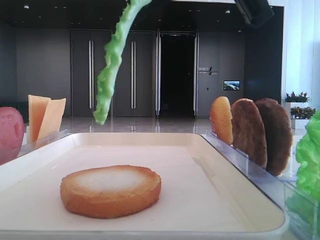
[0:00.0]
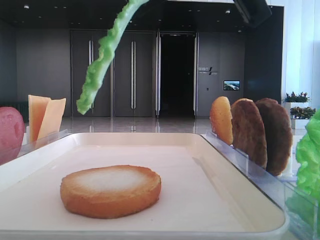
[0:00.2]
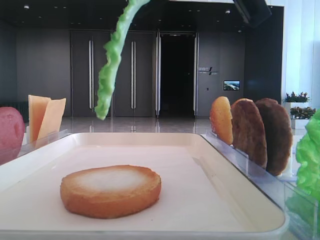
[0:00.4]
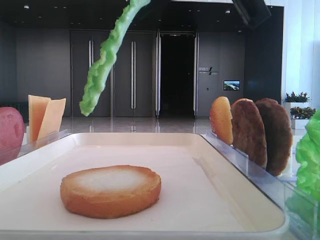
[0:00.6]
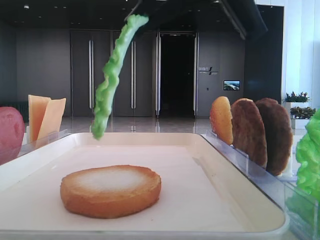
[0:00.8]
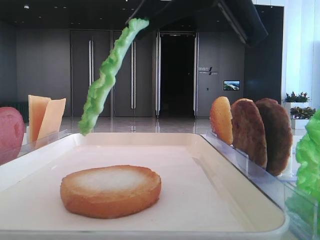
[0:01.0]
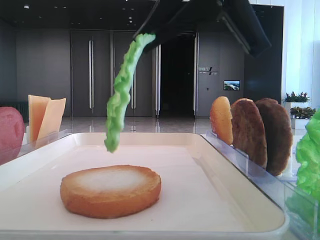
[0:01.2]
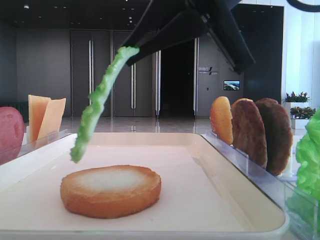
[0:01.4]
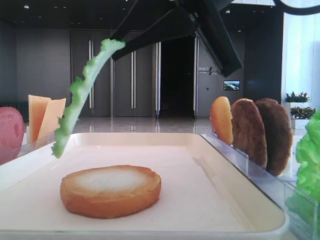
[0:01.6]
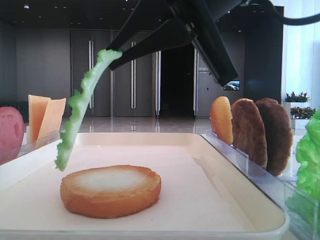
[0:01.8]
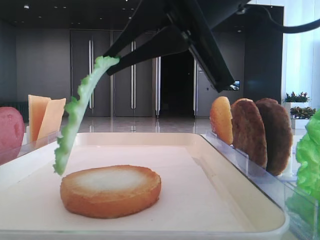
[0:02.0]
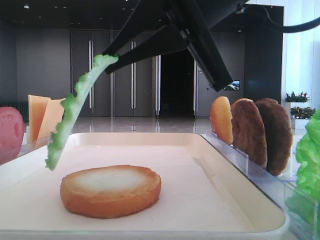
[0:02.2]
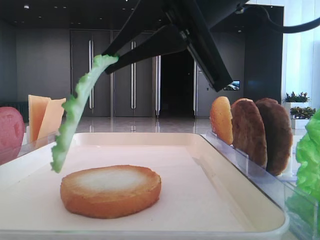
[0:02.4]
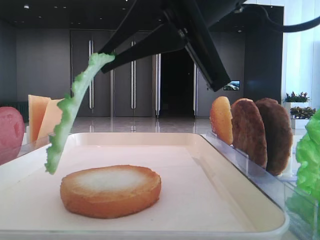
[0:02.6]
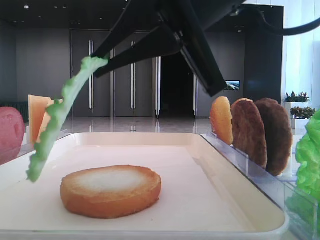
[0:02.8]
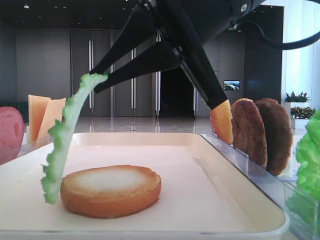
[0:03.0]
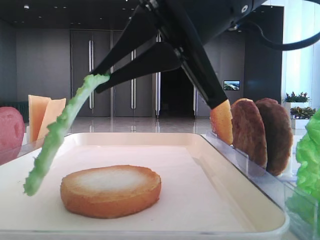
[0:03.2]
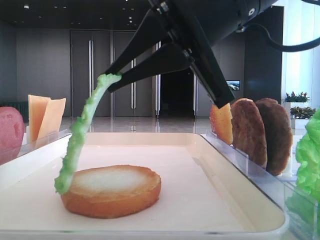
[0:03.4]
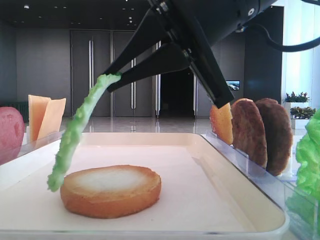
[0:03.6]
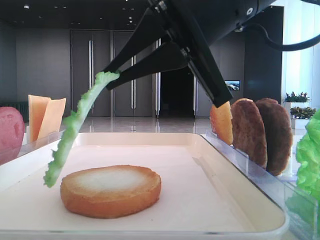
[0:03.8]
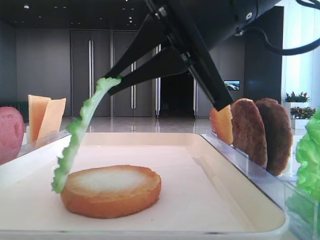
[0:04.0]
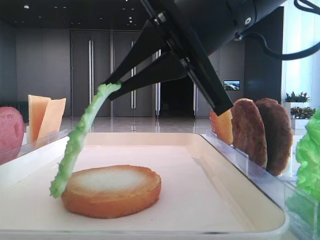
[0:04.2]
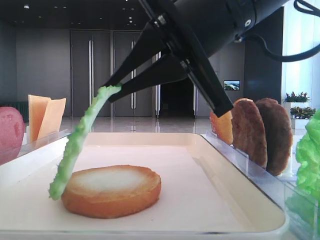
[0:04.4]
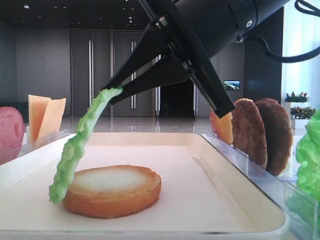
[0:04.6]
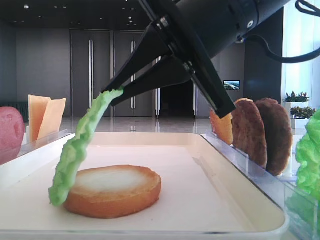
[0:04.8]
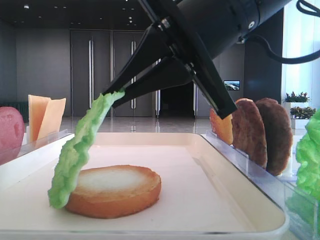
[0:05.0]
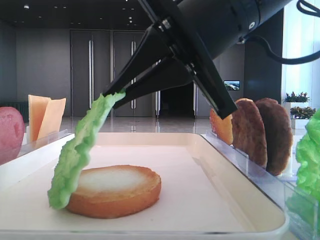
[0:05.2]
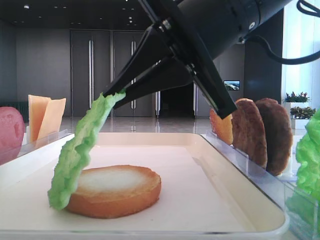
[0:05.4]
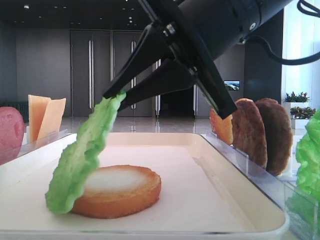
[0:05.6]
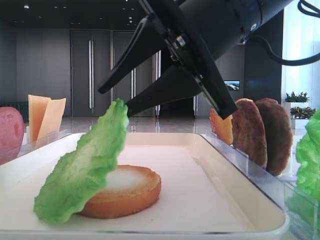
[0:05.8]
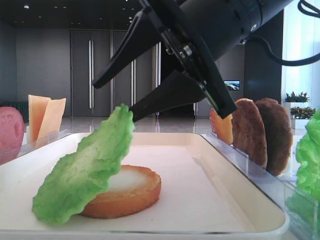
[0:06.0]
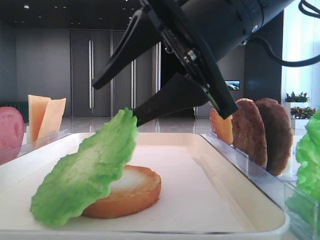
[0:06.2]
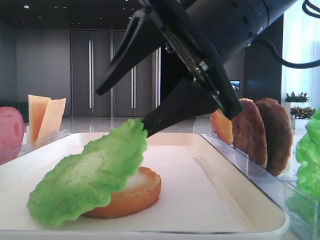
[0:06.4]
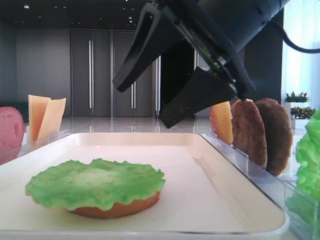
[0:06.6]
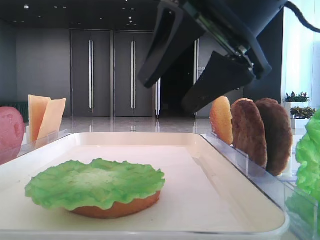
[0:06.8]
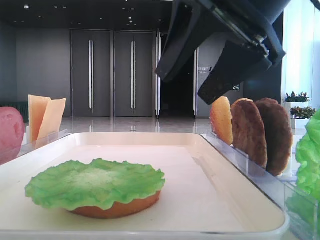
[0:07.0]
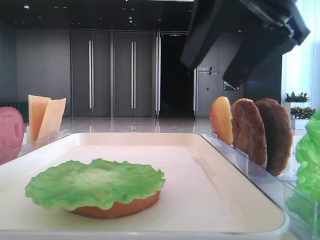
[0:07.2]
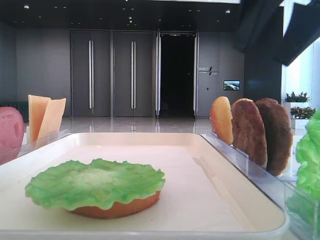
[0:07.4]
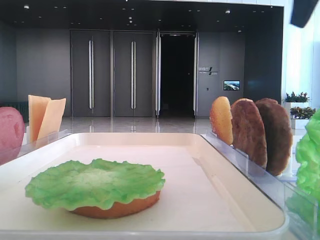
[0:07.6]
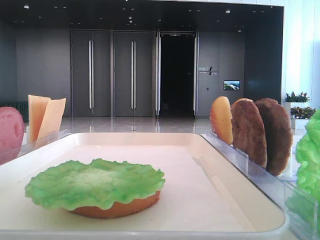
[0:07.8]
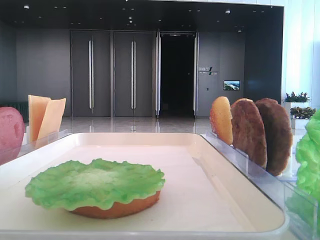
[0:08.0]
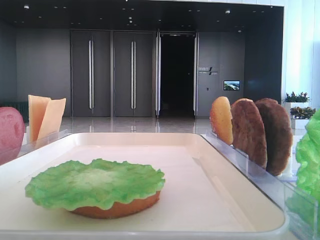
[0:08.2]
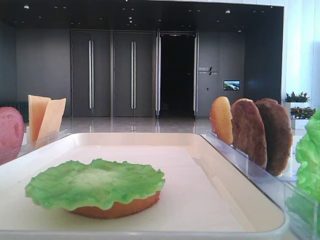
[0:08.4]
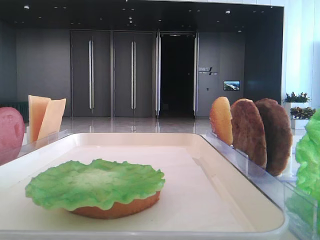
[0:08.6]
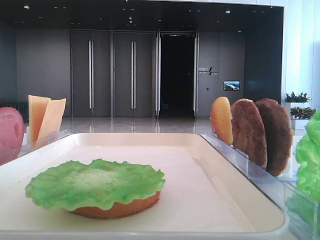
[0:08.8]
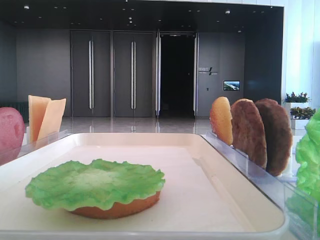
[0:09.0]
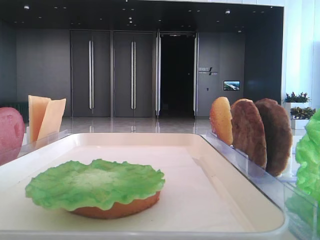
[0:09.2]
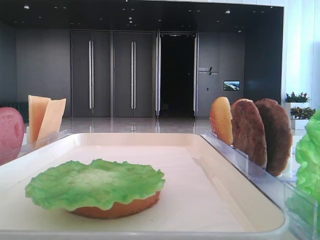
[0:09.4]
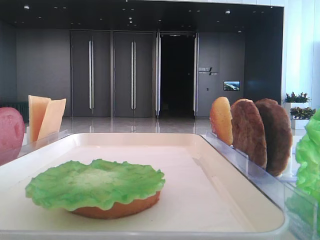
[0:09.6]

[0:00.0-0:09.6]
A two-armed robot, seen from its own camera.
Step, 0:00.0 to 0:06.4: Place the lettuce leaf on the bottom bread with the right hand.
0:00.0 to 0:01.6: There are only small adjustments of the grippers.
0:01.6 to 0:04.8: The grippers make only small movements.
0:04.8 to 0:06.4: The right gripper opens its fingers.
0:06.4 to 0:08.0: The right gripper is displaced to the right and upward by approximately 30 cm.

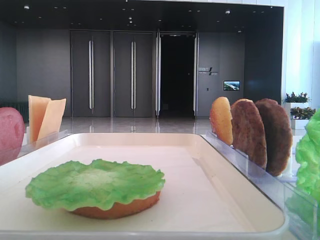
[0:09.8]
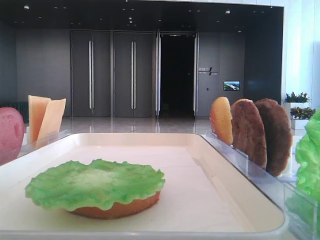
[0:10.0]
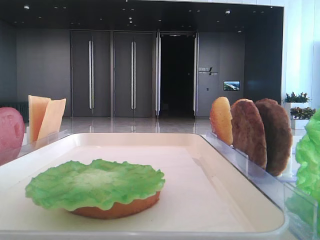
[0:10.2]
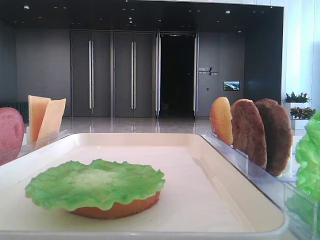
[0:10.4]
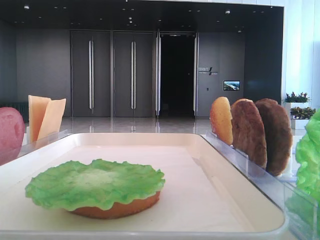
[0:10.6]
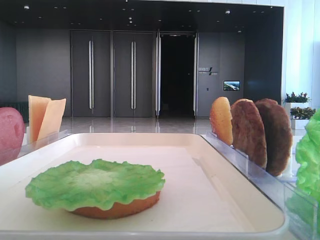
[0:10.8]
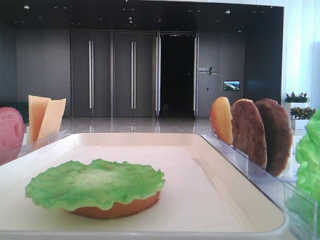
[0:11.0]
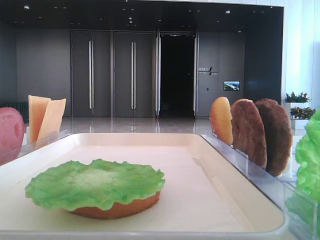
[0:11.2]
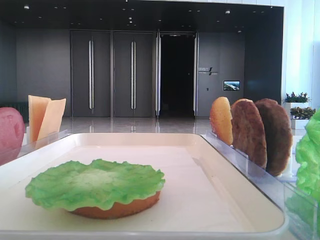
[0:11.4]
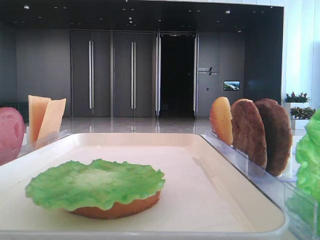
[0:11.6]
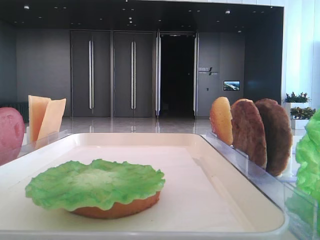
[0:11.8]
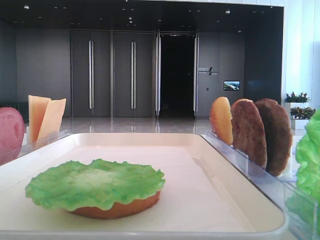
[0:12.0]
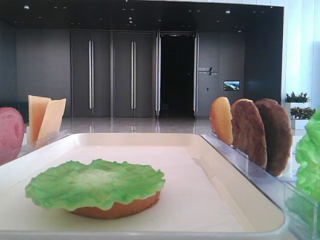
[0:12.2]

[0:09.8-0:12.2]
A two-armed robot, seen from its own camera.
0:11.0 to 0:12.2: Both grippers stay about where they are.

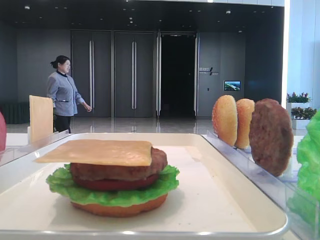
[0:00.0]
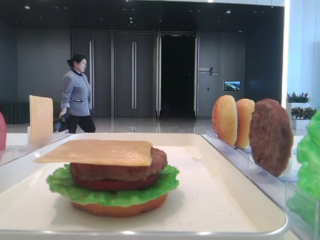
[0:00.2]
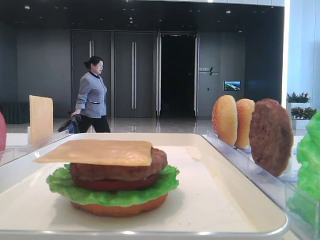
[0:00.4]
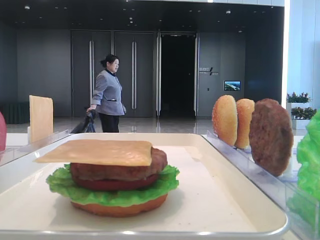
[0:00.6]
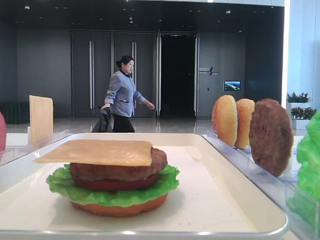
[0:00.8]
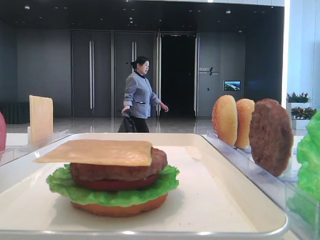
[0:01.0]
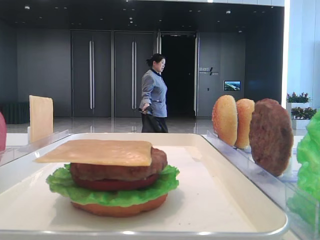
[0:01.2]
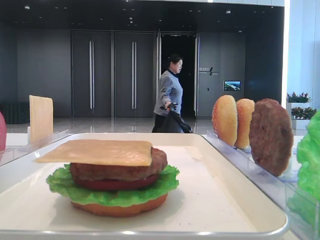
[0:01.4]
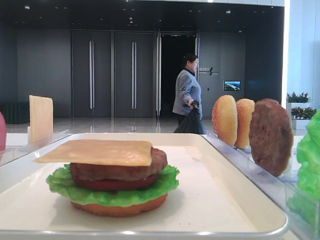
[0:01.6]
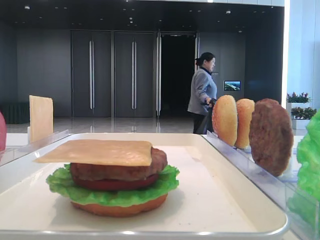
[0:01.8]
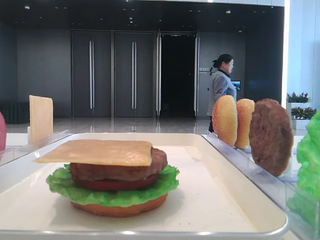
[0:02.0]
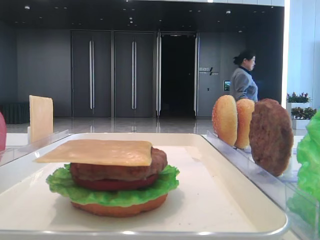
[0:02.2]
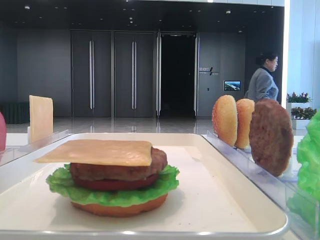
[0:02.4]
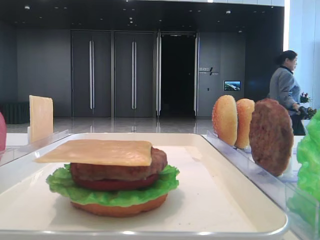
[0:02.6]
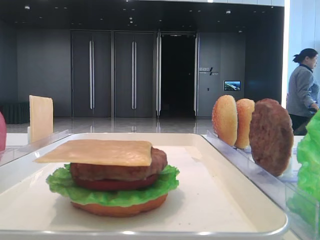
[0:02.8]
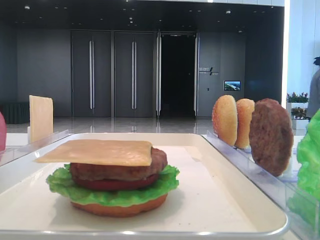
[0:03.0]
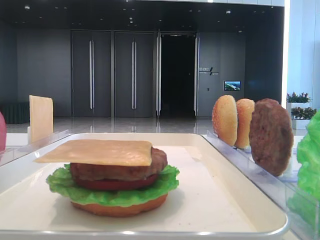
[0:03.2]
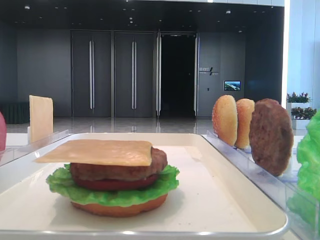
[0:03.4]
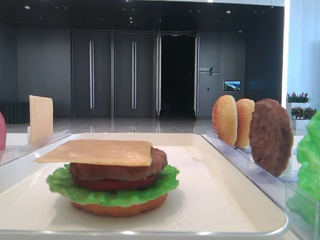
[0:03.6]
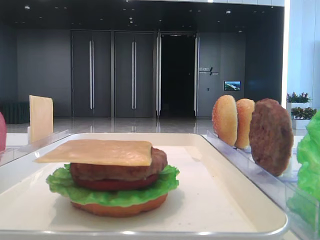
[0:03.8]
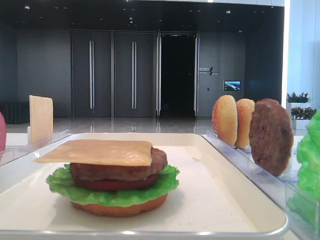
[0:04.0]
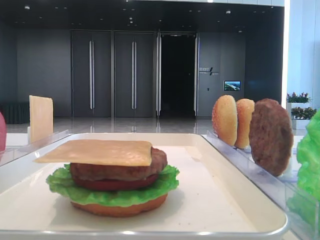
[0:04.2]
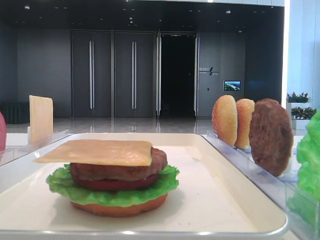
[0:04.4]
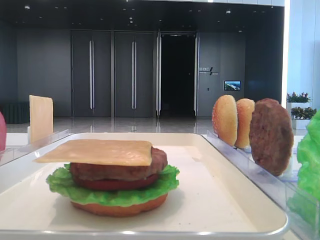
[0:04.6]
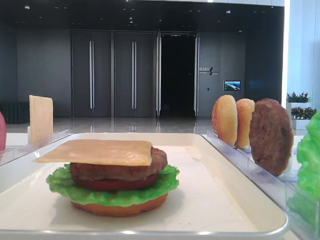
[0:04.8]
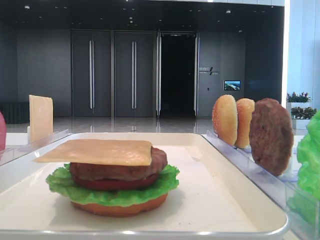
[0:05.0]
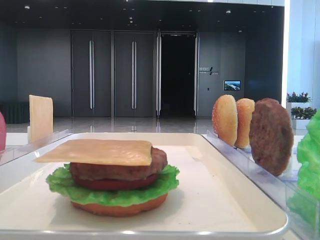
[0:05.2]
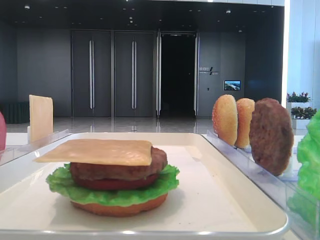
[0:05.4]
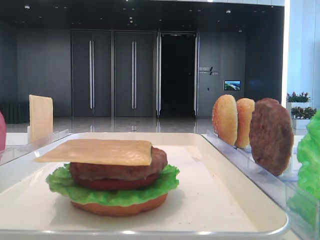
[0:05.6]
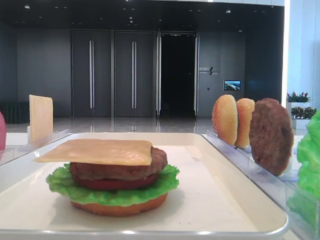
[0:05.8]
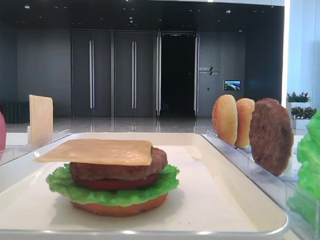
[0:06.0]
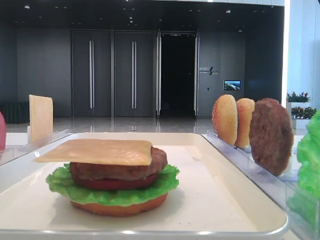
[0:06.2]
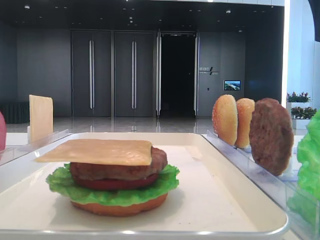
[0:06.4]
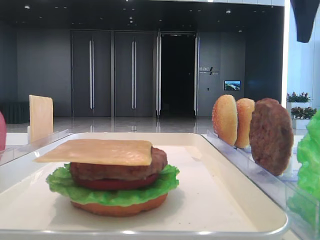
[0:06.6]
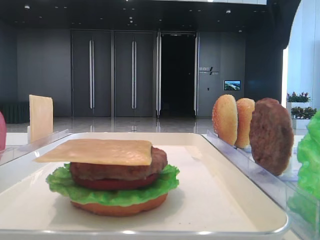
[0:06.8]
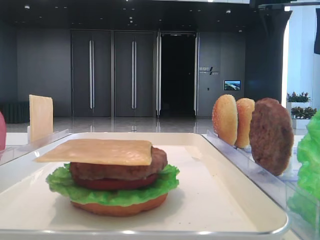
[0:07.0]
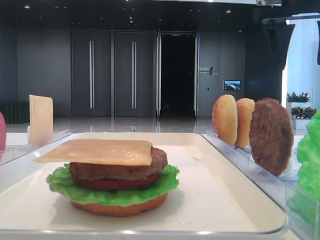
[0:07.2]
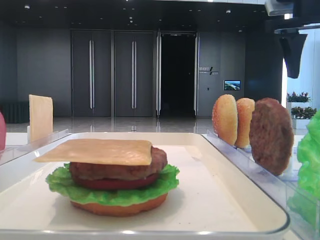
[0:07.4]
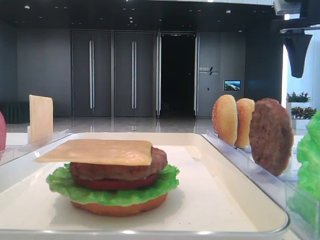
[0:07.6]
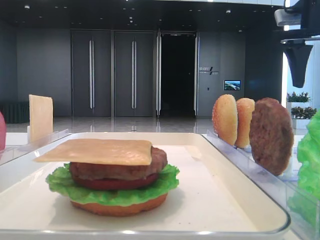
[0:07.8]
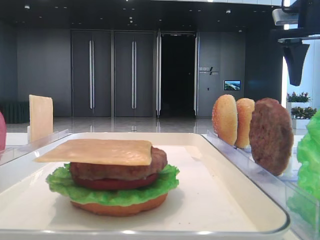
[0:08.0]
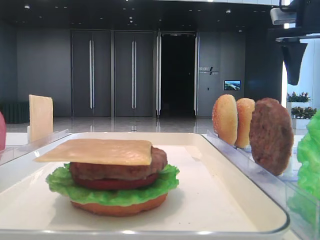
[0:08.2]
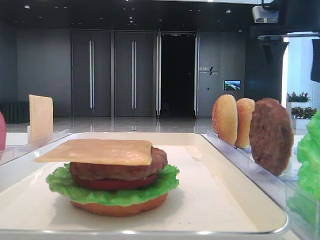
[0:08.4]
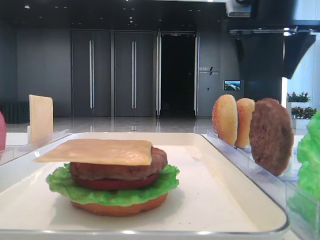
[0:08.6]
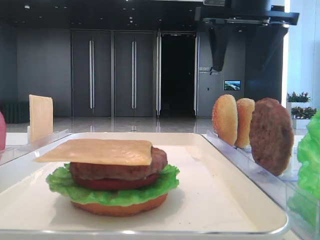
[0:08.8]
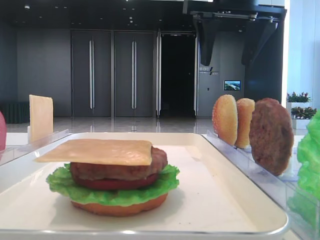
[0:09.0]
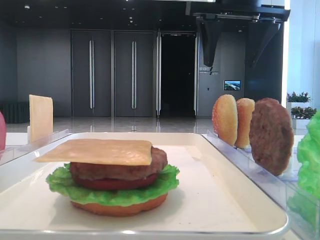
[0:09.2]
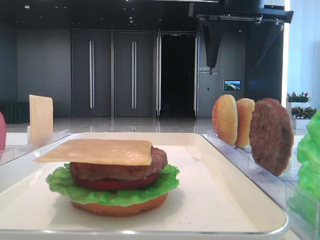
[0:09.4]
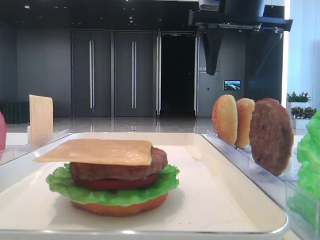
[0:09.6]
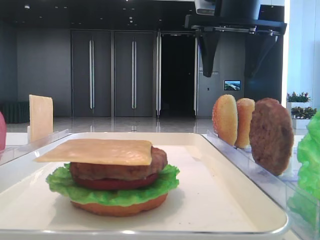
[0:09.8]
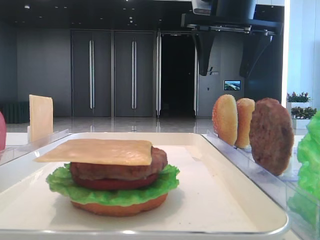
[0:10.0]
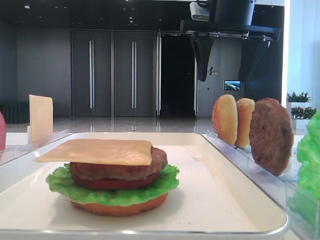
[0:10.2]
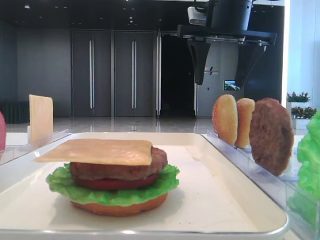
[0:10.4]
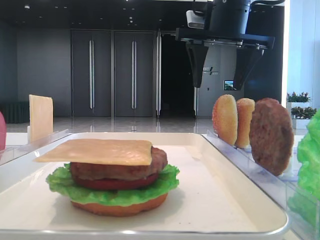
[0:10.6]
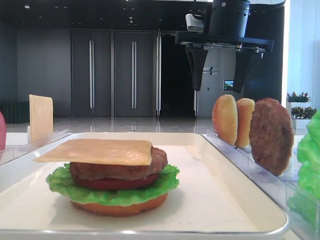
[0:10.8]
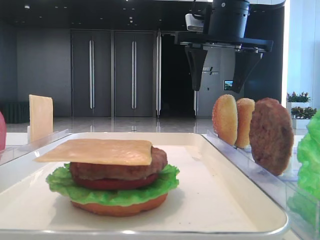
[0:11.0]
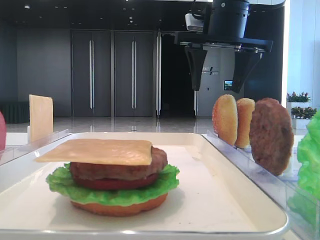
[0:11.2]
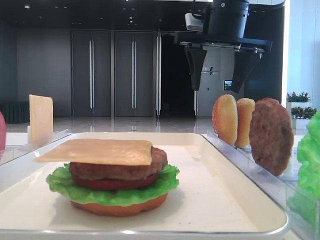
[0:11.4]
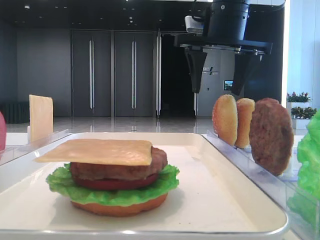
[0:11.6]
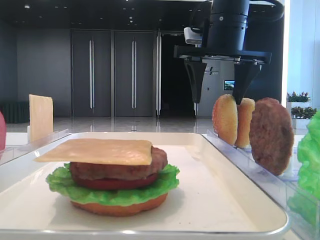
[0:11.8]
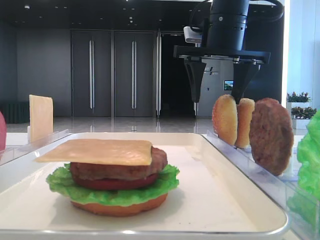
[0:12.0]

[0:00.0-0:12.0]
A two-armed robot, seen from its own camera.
0:01.6 to 0:03.0: The two grippers keep their place.
0:06.0 to 0:07.6: The right gripper is displaced forward by roughly 5 cm.
0:07.6 to 0:09.0: The right gripper goes approximately 15 cm to the left.
0:09.0 to 0:10.4: The grippers stay close to where they were, moving slightly.
0:10.4 to 0:12.0: The grippers move only a little.
